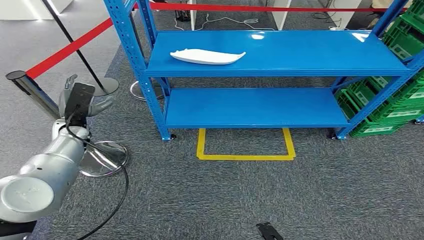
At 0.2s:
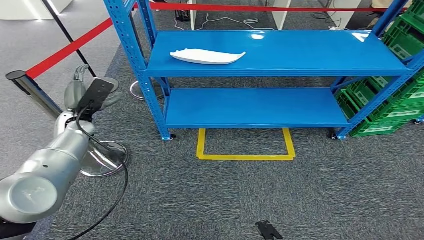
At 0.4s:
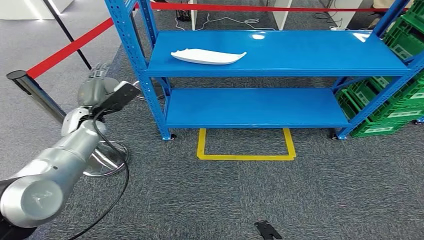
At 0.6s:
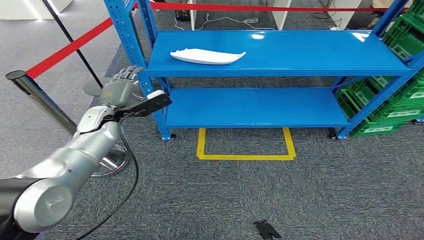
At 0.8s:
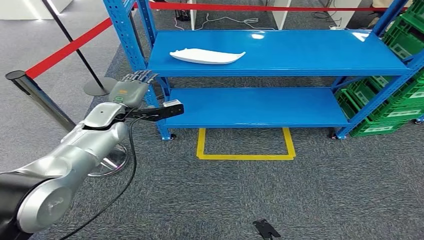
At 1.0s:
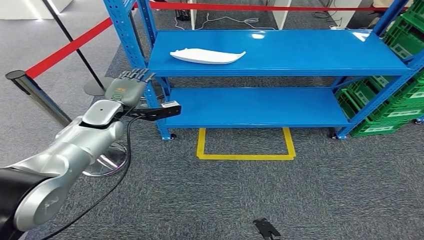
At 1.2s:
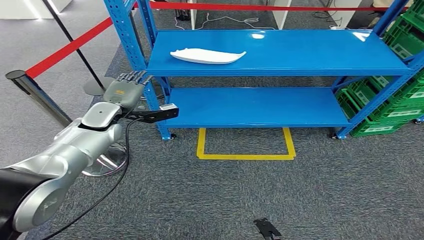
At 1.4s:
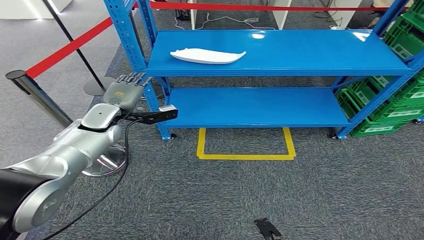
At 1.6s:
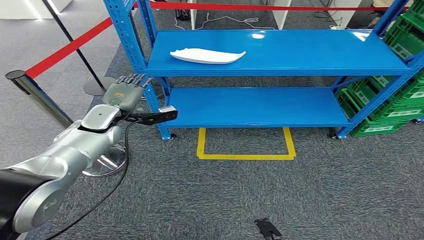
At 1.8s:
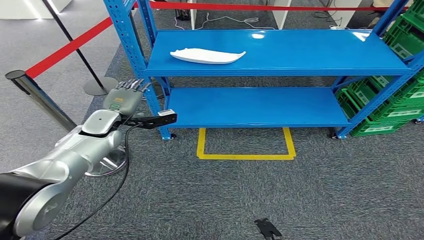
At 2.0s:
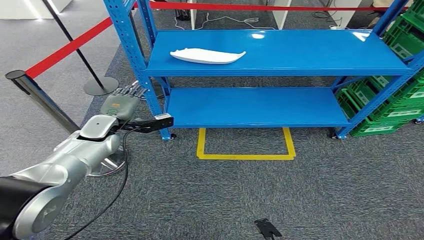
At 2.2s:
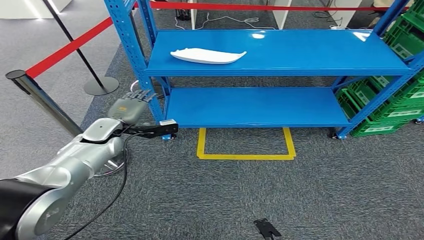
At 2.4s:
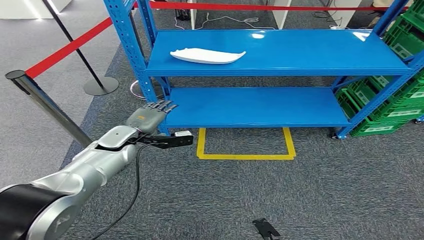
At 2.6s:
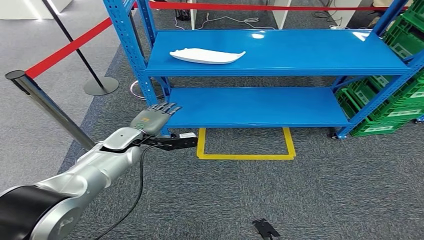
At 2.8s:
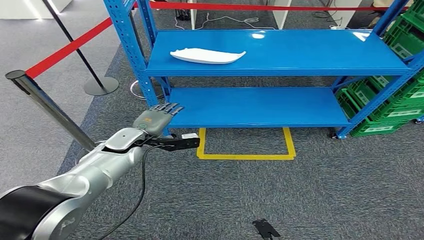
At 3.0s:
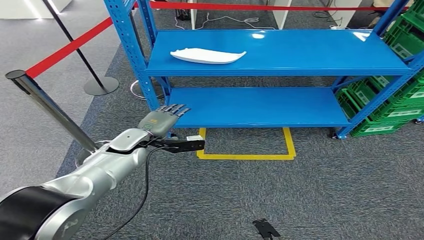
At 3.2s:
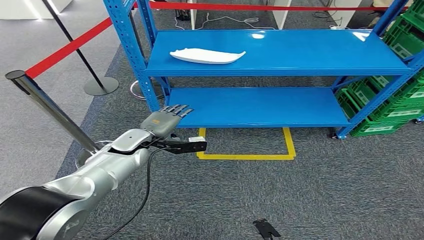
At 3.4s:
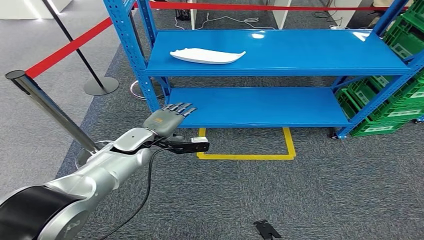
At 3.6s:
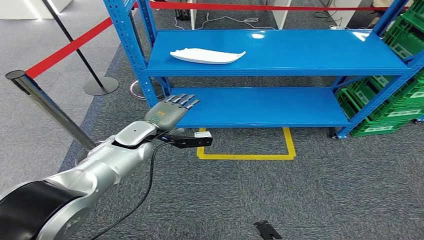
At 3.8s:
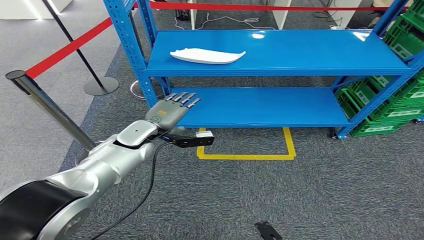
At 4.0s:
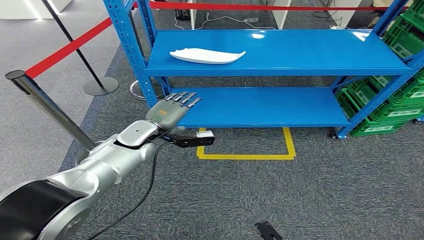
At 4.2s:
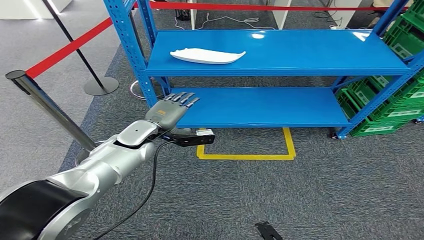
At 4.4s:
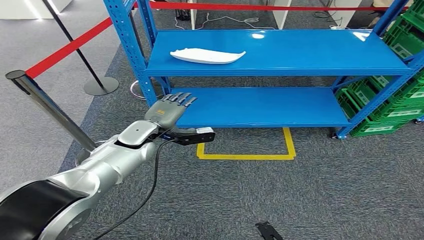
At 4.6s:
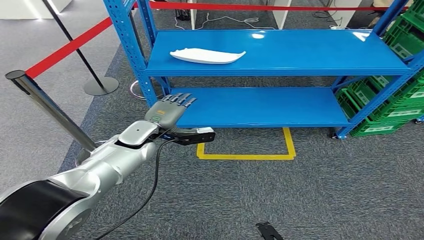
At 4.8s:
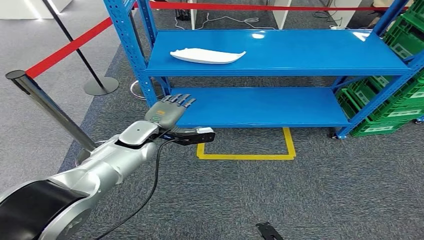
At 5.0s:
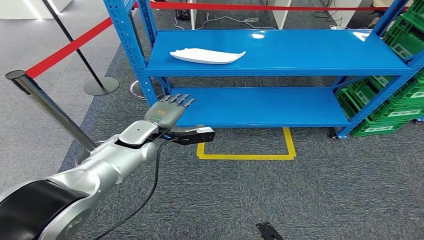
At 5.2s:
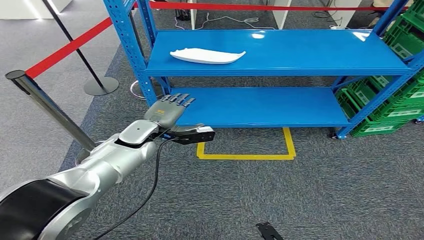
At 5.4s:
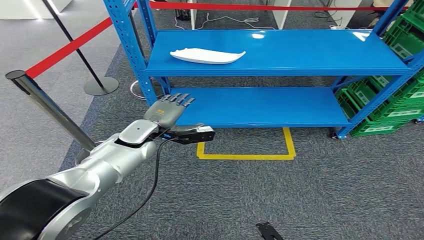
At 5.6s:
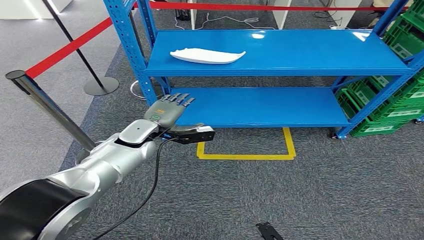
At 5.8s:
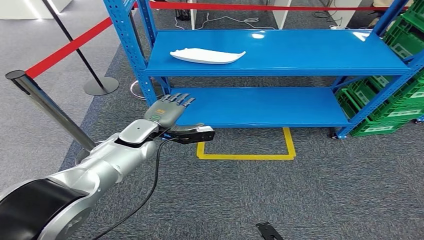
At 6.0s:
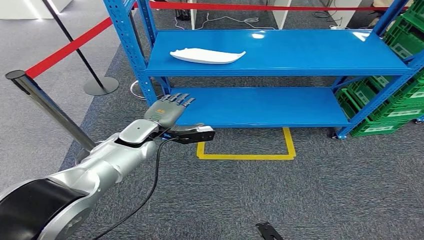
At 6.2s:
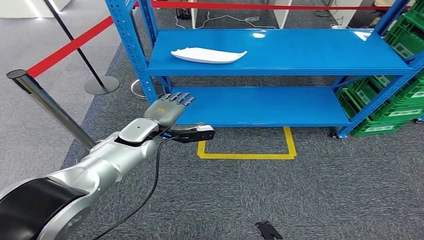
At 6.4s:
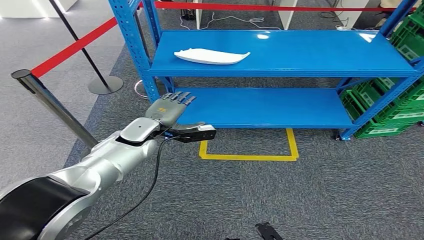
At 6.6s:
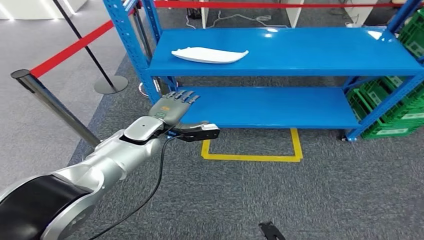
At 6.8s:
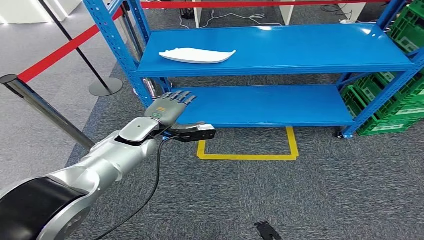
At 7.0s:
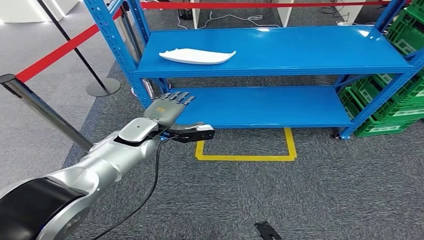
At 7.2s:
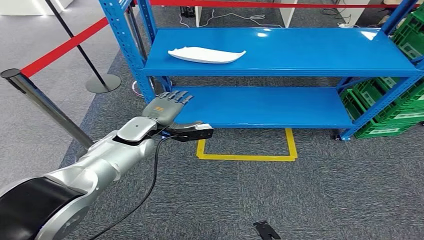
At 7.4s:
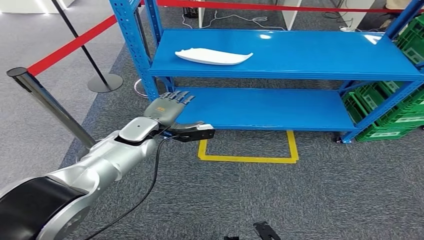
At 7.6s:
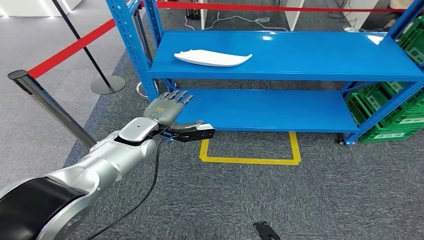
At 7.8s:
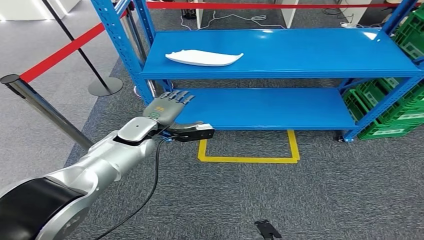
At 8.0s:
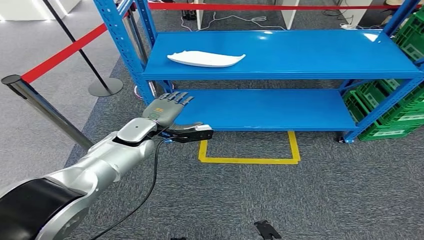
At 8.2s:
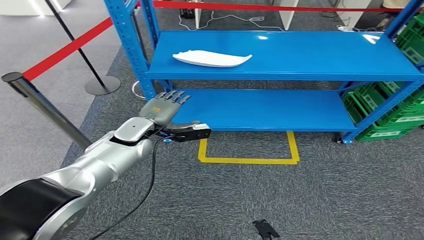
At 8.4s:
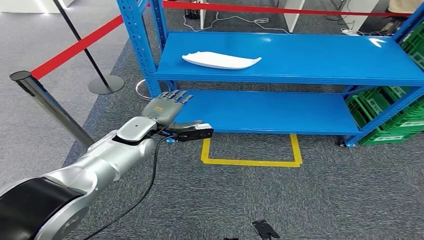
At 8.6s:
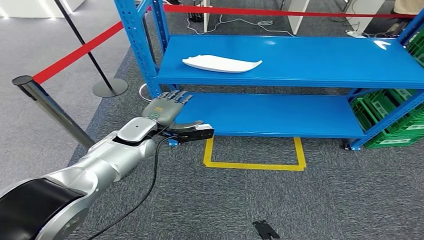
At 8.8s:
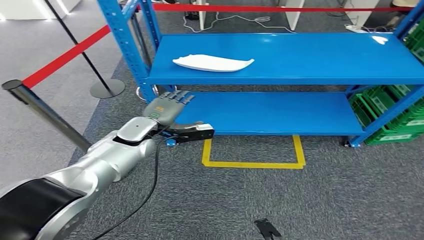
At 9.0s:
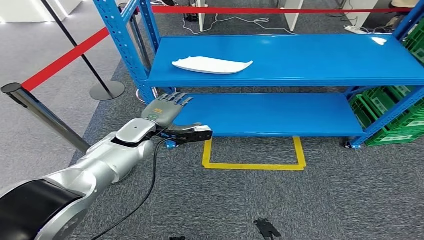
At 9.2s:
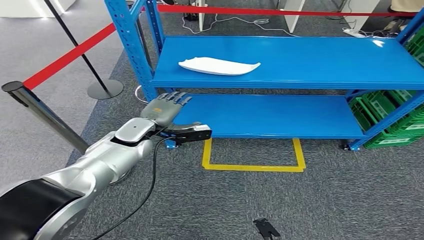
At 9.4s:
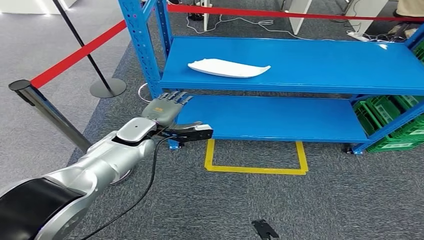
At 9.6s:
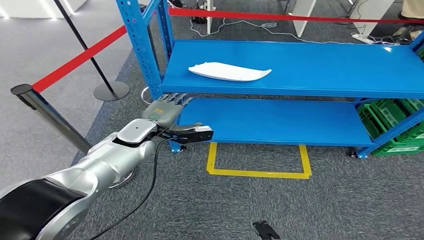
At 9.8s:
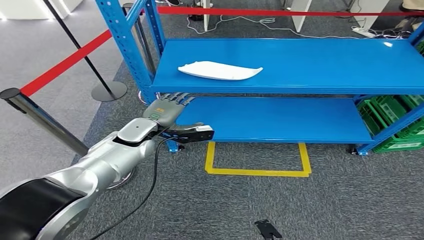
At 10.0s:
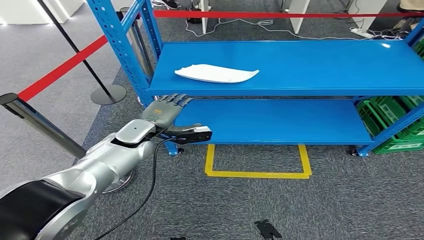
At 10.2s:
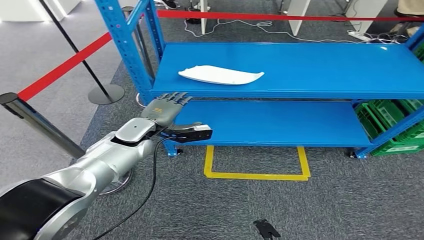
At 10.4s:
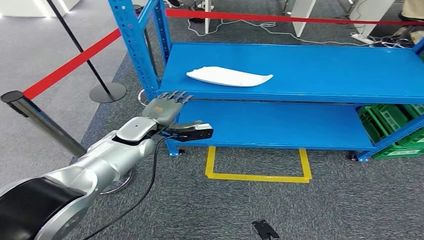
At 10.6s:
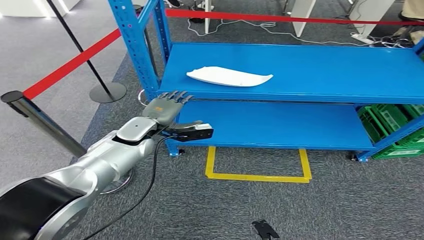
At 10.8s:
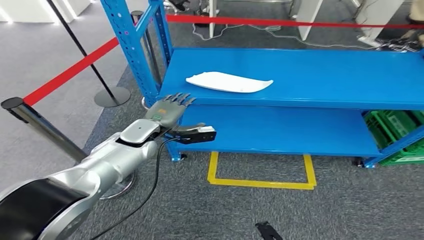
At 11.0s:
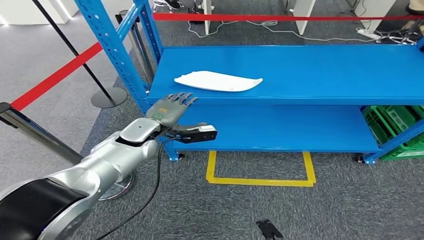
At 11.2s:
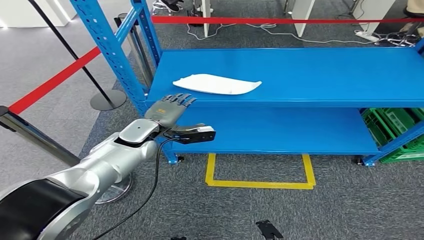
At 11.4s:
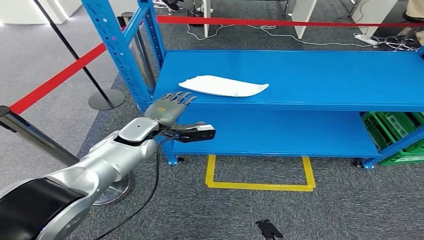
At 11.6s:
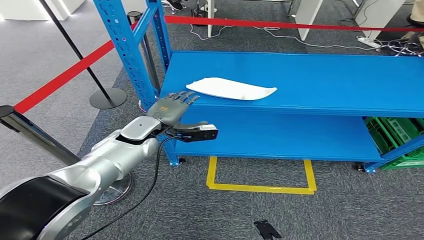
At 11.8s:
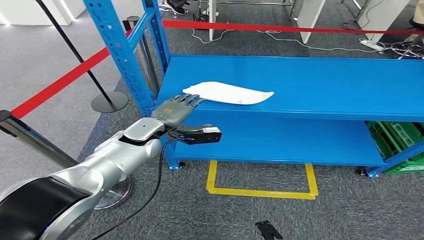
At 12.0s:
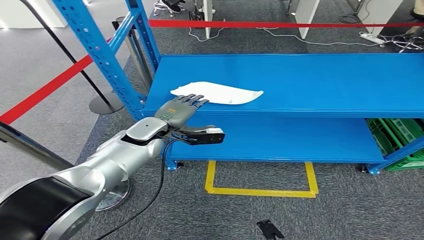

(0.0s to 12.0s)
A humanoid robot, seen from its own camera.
1.6s - 3.0s: The left hand shifts roughly 10 cm downward and to the right.
3.0s - 4.4s: The hands stay close to where they were, moving slightly.
4.4s - 6.0s: The two hands keep their place.

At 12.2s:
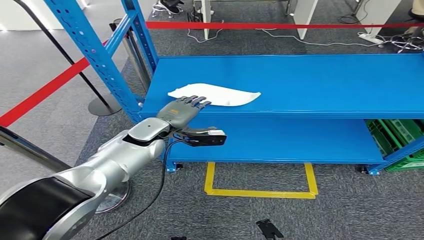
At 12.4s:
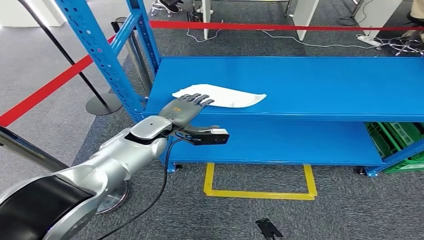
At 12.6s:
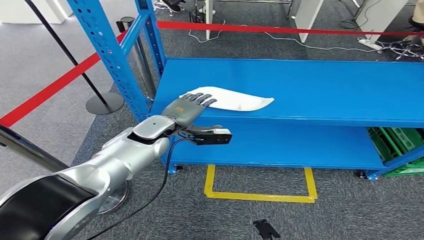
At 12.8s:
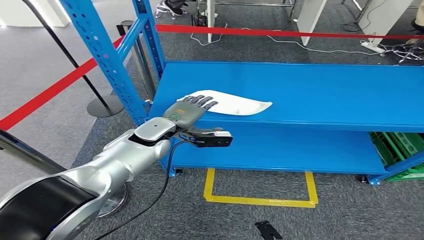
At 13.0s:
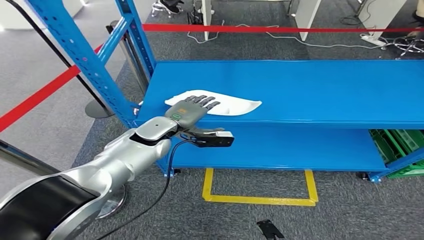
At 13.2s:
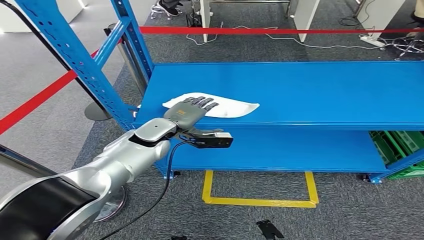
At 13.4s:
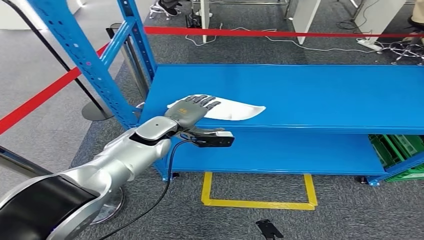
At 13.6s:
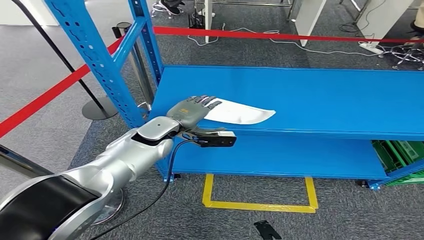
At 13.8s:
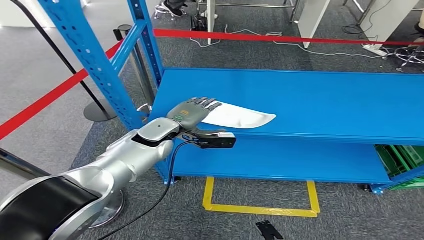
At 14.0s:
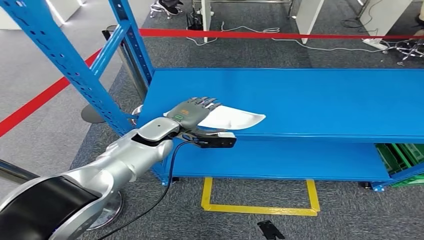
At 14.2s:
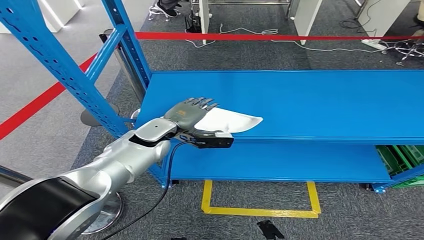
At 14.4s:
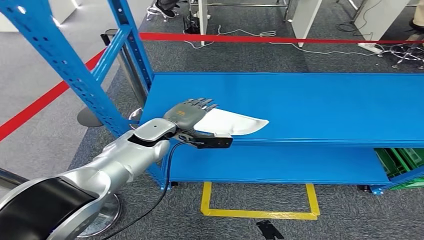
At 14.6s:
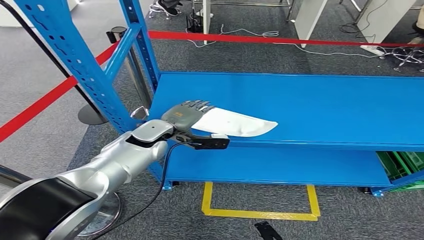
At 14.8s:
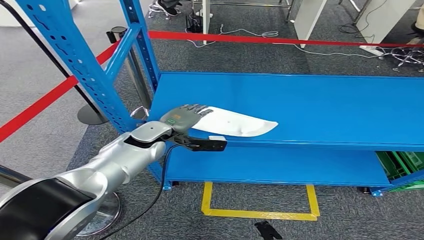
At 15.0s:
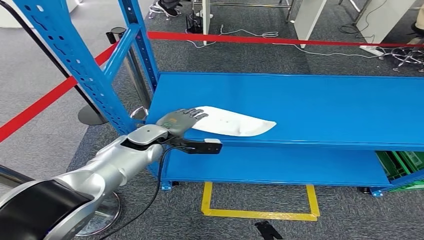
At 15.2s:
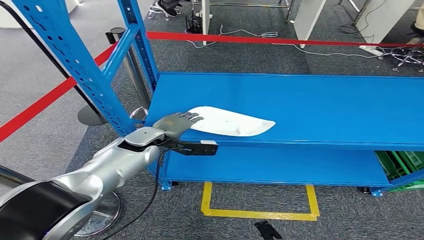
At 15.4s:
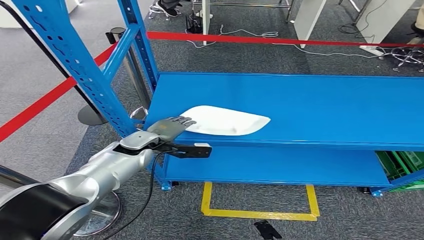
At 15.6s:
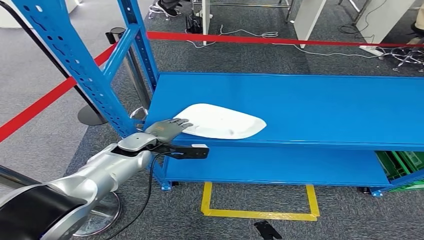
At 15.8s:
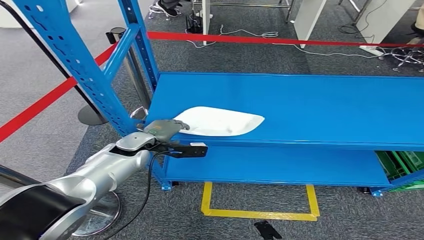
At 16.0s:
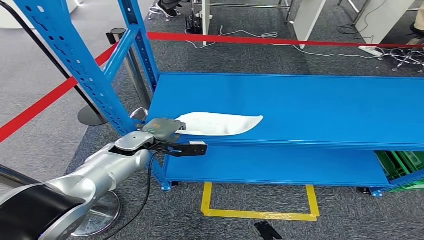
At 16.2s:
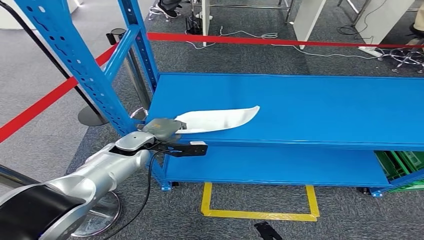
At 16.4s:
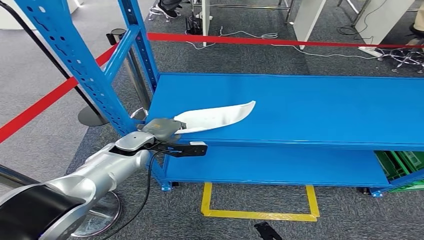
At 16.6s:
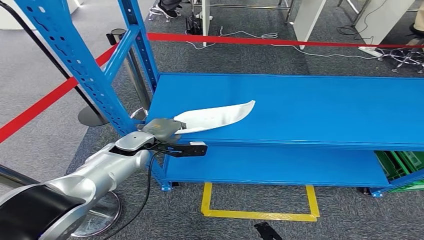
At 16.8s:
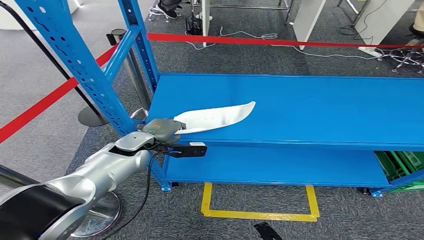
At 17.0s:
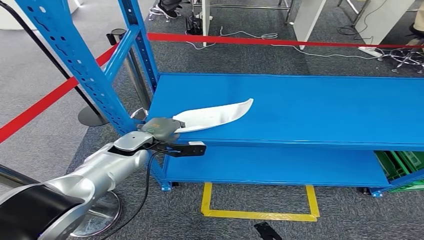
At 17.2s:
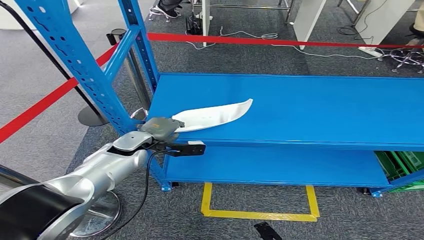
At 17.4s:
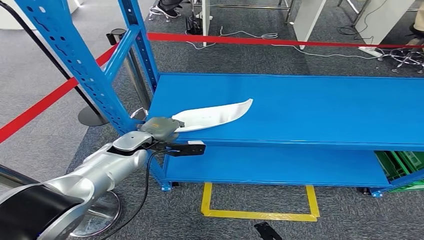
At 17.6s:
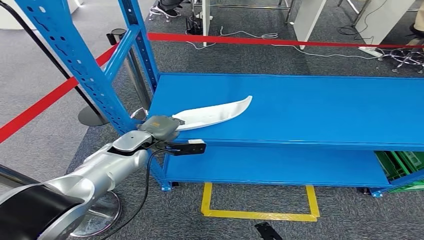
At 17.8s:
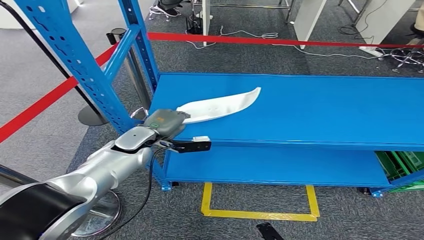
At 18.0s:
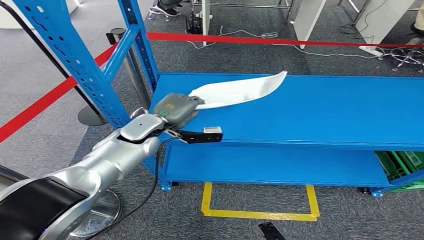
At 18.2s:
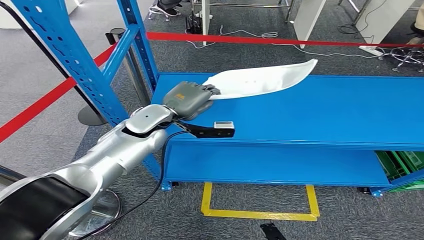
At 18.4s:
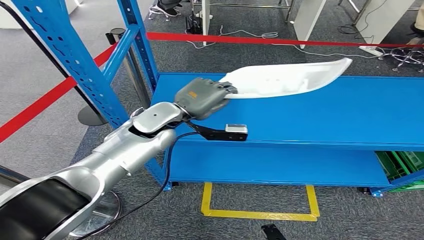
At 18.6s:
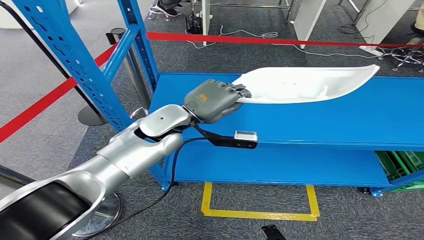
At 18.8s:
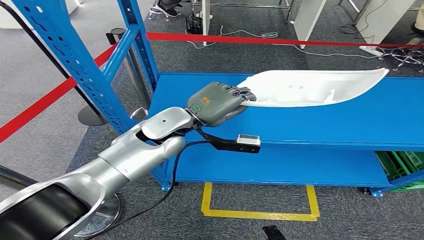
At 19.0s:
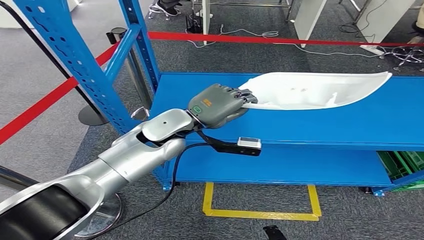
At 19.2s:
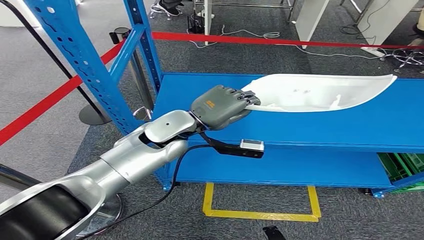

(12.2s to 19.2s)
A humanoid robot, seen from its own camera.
Step, 12.2s - 16.4s: Pick up the small component from the shelf.
15.0s - 17.8s: The hands make only small movements.
